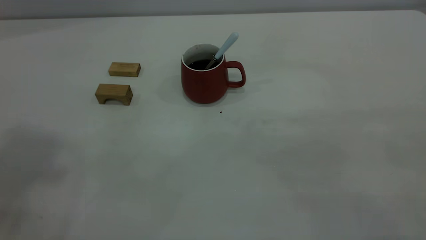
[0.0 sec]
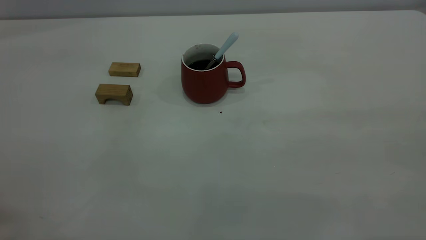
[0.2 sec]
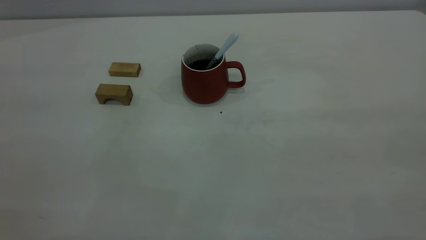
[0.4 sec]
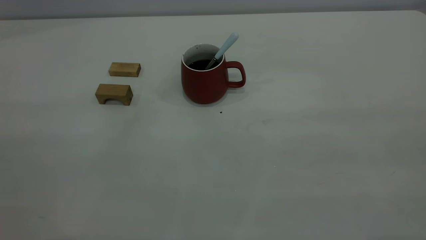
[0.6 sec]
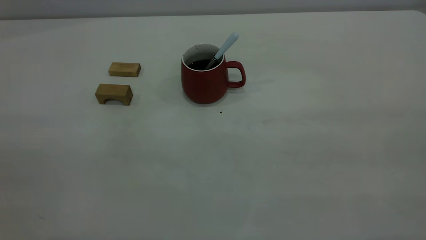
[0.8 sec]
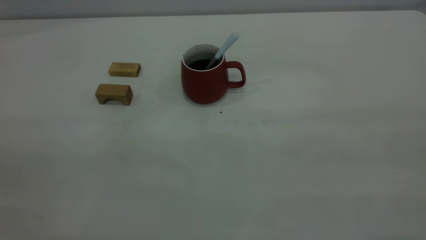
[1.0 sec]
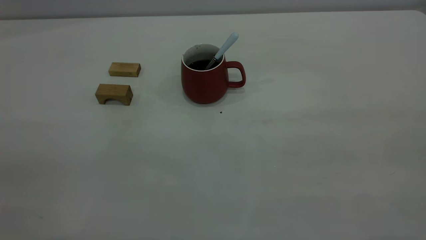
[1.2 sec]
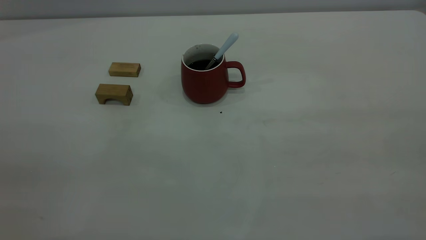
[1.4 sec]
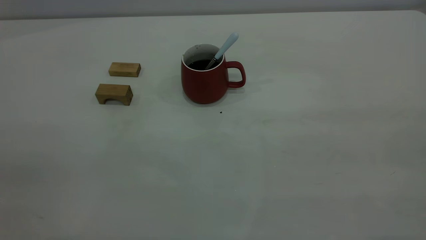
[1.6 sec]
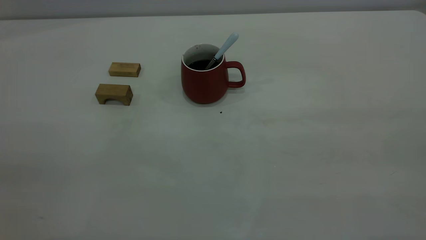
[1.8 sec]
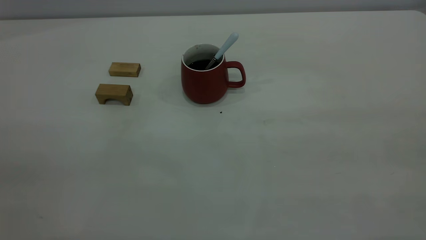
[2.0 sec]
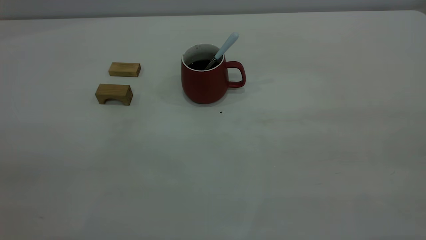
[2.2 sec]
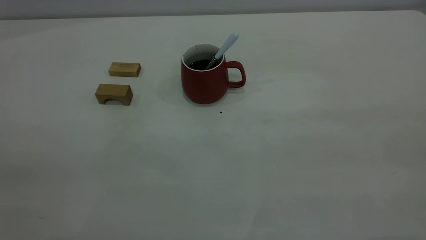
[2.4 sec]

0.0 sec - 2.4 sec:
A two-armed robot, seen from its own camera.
1.2 sec - 2.4 sec: The two grippers keep their place.
